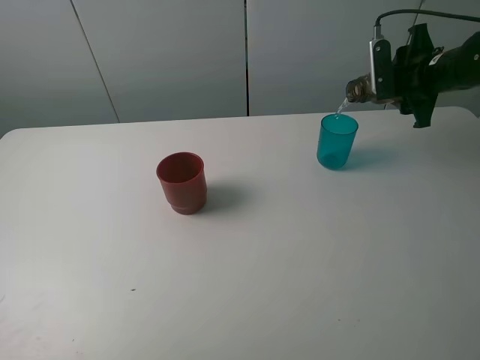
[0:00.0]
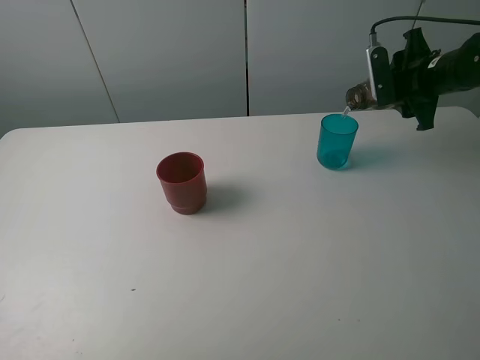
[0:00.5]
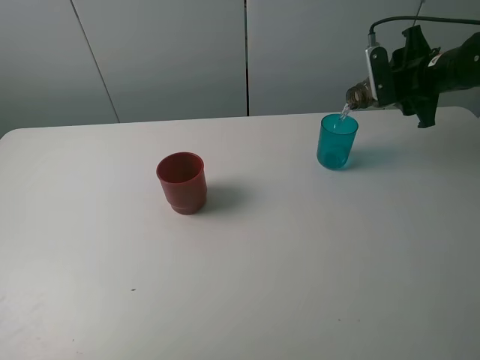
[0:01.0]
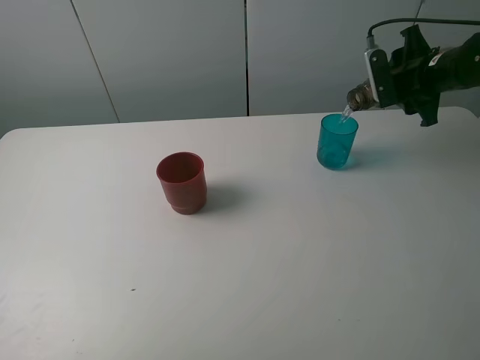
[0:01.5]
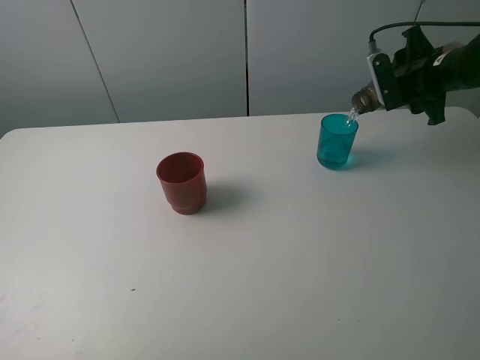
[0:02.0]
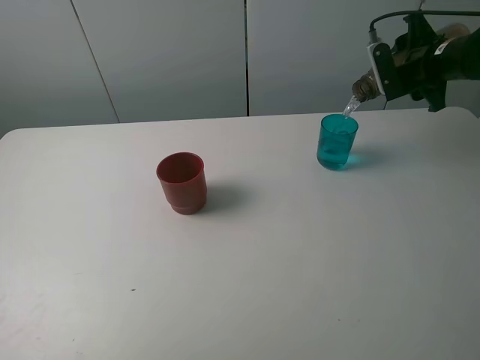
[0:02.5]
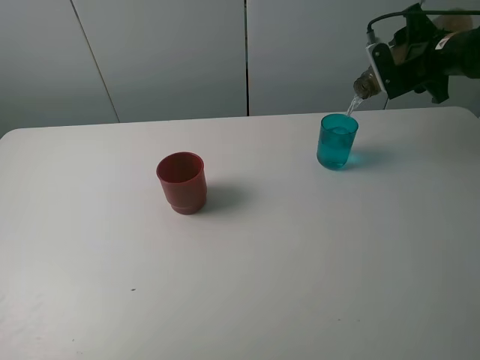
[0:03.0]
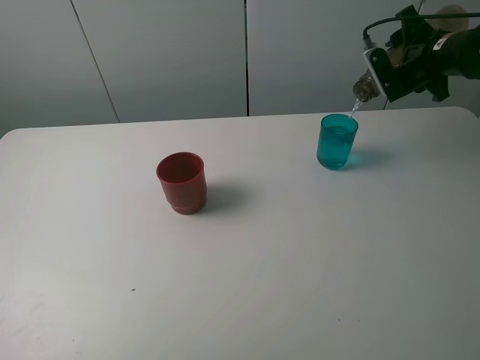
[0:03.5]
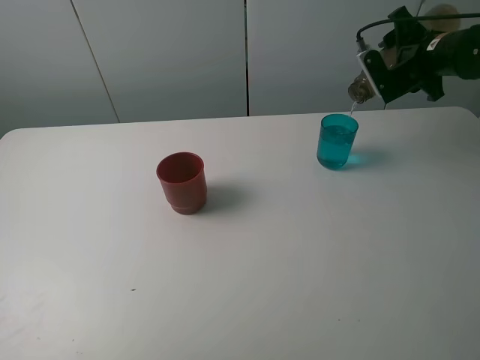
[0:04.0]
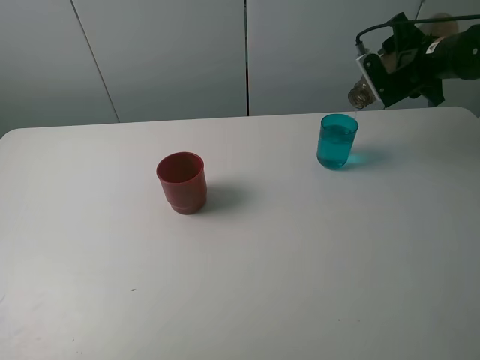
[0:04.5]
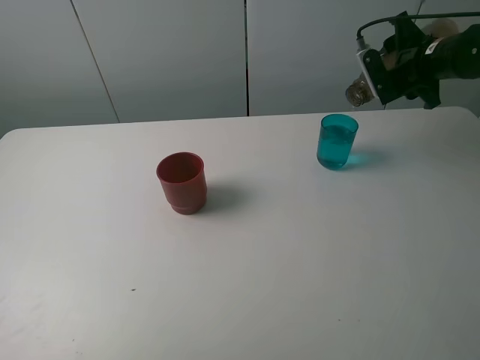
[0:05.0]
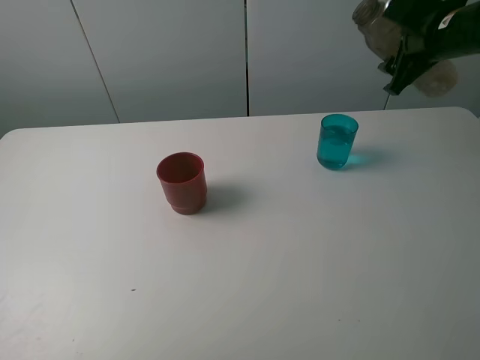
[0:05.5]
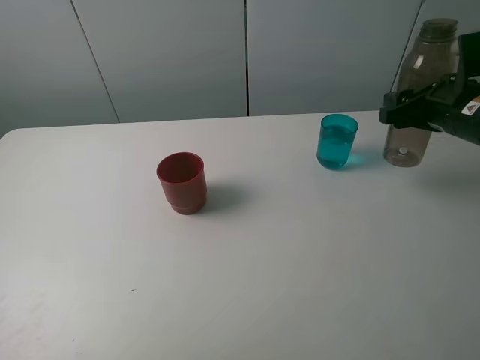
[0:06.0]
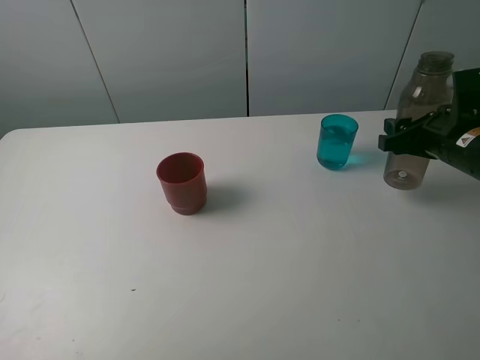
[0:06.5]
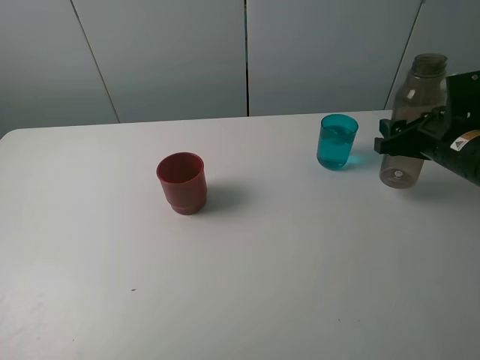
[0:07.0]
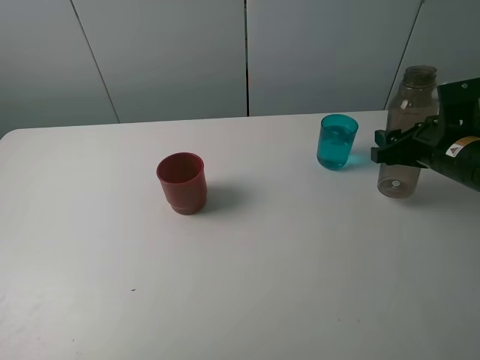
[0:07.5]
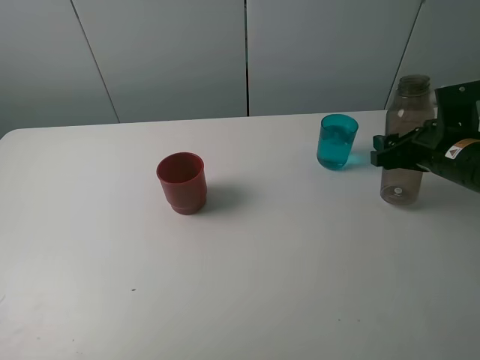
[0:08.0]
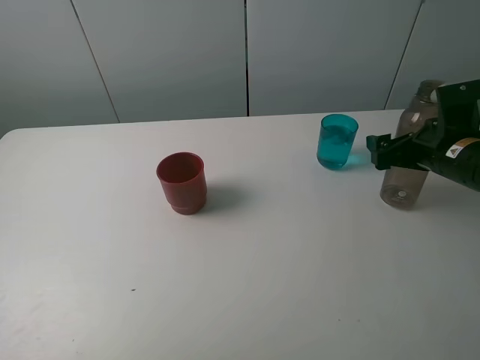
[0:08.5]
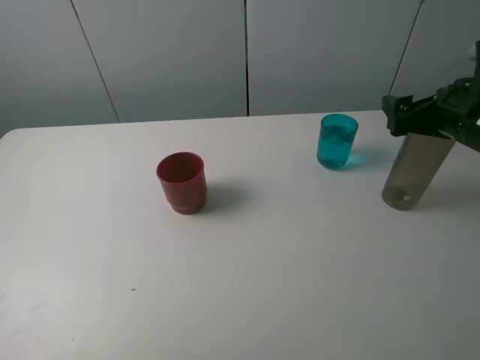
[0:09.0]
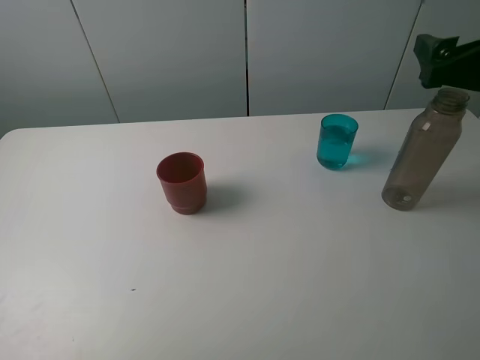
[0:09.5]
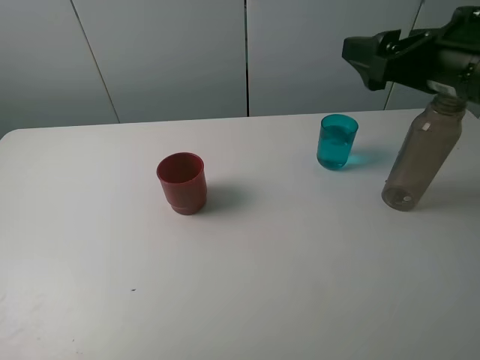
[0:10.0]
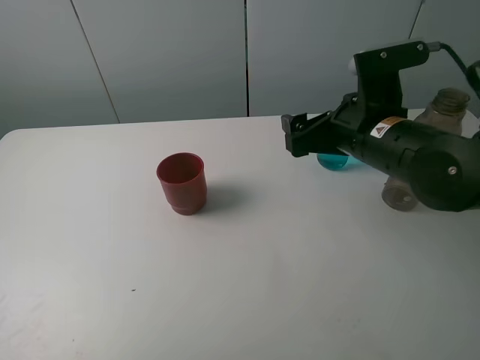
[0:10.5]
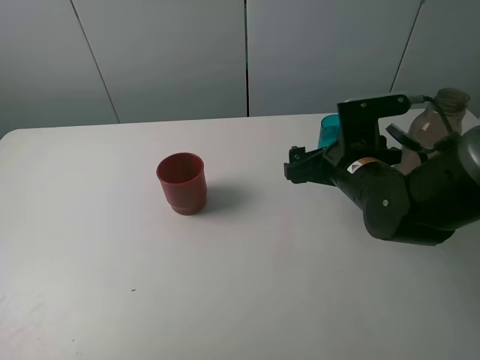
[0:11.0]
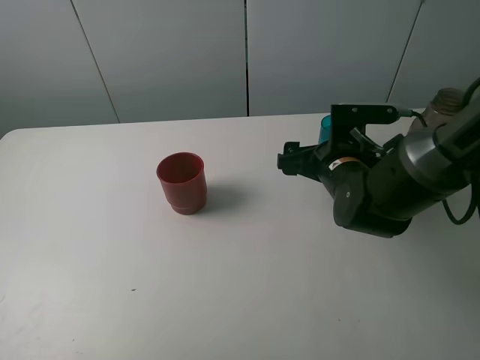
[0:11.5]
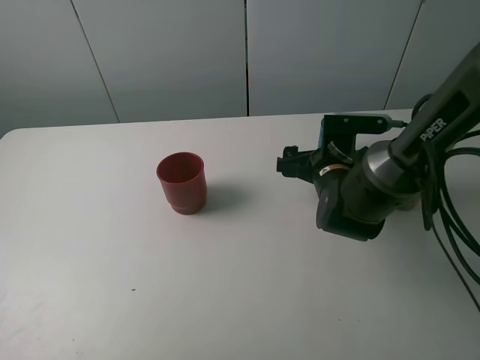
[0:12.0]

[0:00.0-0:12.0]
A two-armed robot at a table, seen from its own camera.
Task of the whole recording: pick up the bottle and pour water into the cup, then pick up the cup containing water and pour it into another cup.
Step, 0:00.0 to 0:05.0: Pour water from brown bottle to blue cup with the right gripper.
Step, 0:05.5 to 0:08.5: Place the brown bottle with the right gripper.
0:00.0 to 0:02.0: The grippers stay close to where they were, moving slightly.
0:02.0 to 0:04.0: The grippers move only a little.
0:04.0 to 0:06.0: The right gripper goes some 15 cm backward.
0:06.0 to 0:08.0: The grippers move only a little.
0:08.0 to 0:10.0: The right gripper heads upward and to the left, covering approximately 15 cm, and opens.
0:10.0 to 0:12.0: The right gripper heads downward and to the left, covering roughly 20 cm.

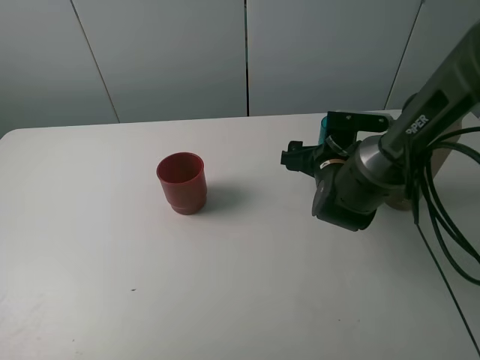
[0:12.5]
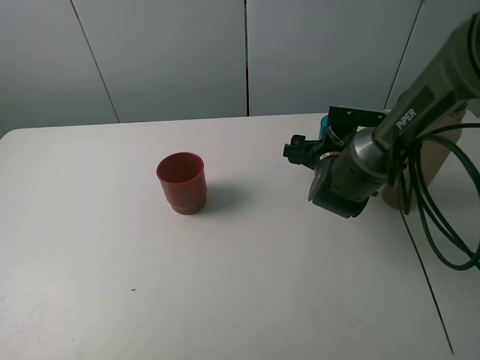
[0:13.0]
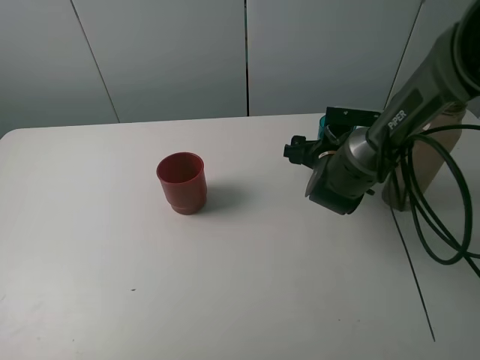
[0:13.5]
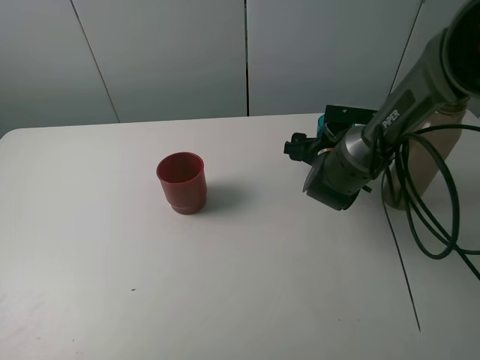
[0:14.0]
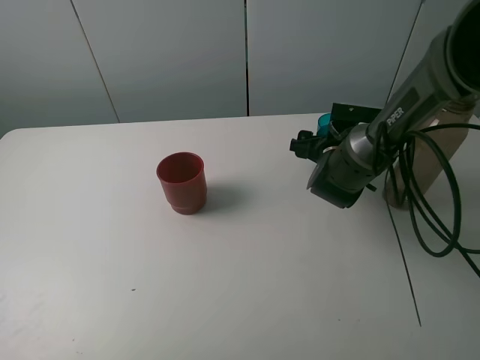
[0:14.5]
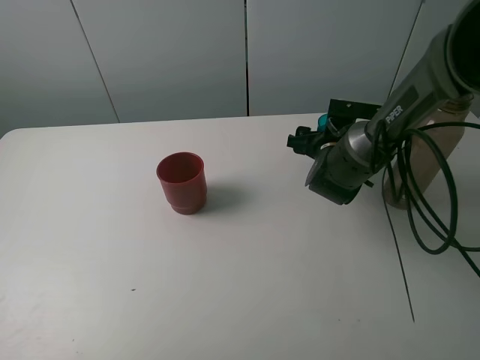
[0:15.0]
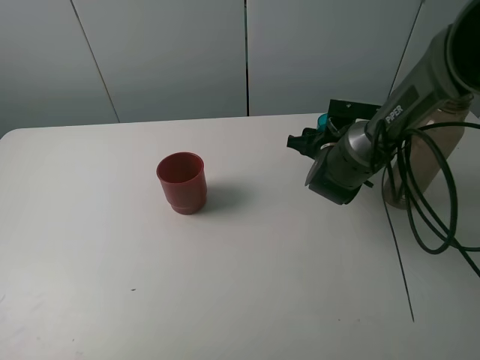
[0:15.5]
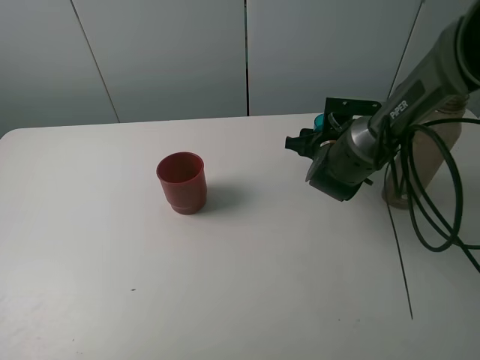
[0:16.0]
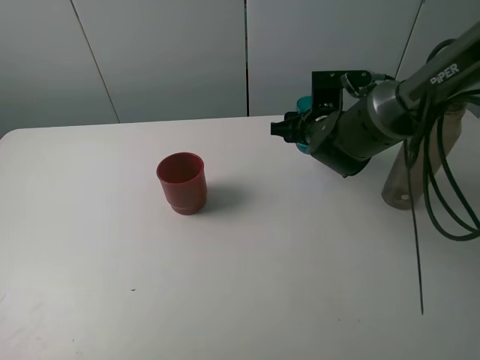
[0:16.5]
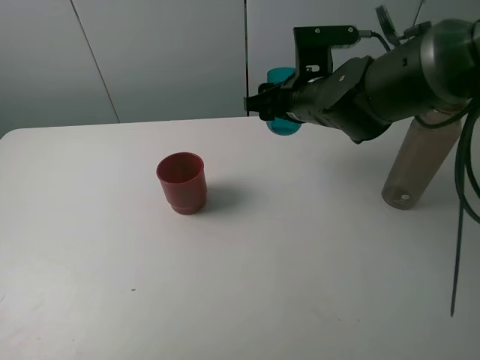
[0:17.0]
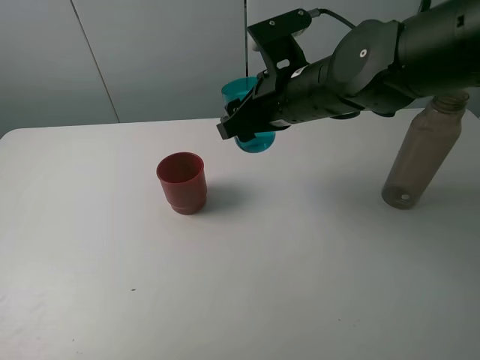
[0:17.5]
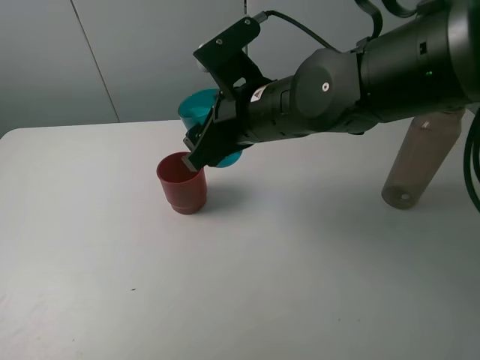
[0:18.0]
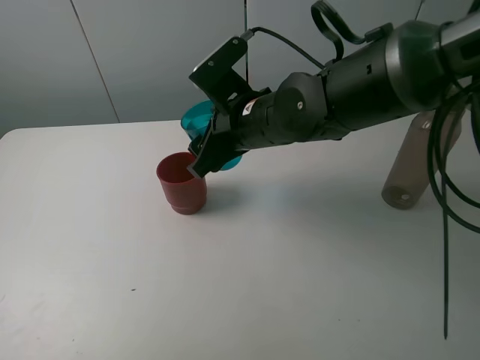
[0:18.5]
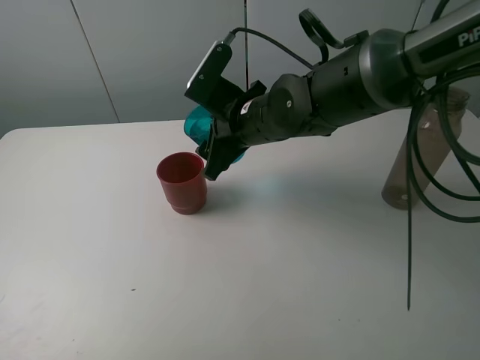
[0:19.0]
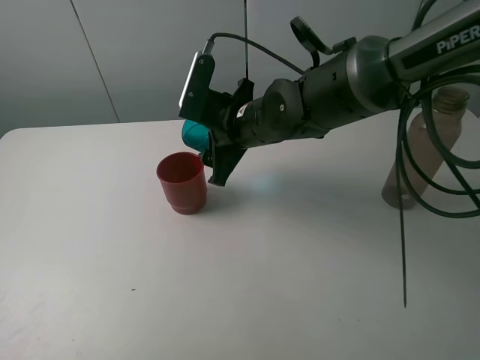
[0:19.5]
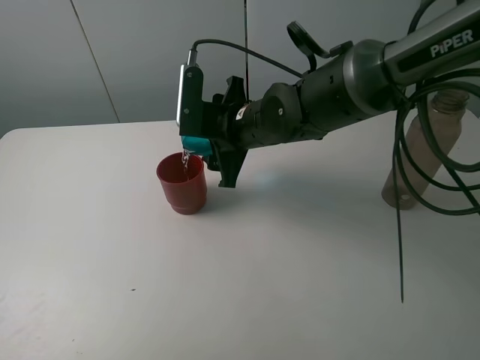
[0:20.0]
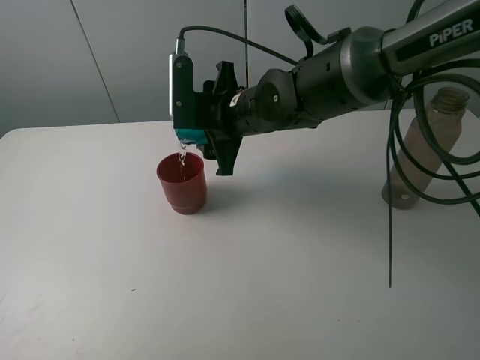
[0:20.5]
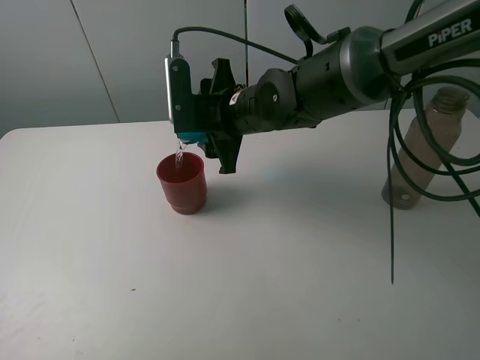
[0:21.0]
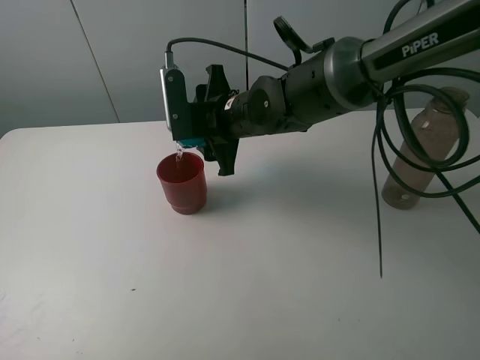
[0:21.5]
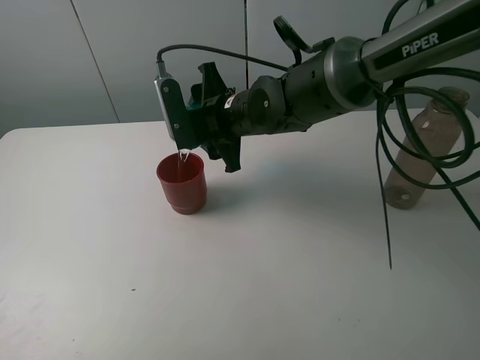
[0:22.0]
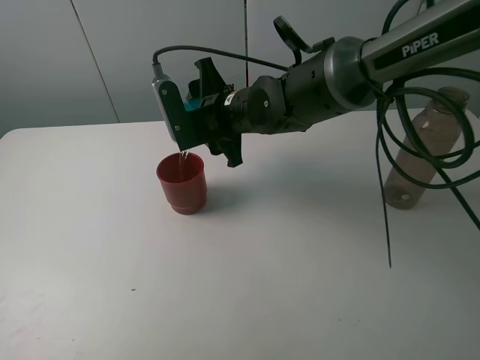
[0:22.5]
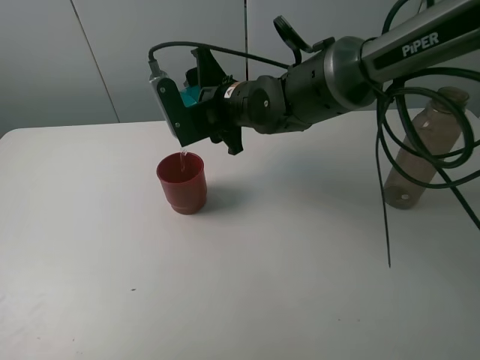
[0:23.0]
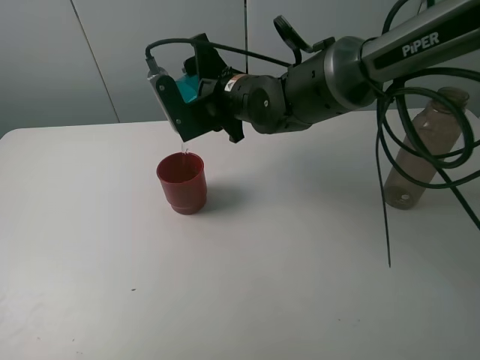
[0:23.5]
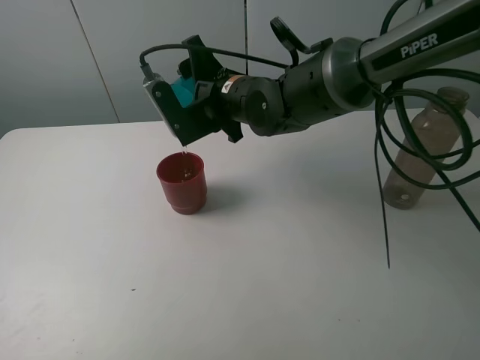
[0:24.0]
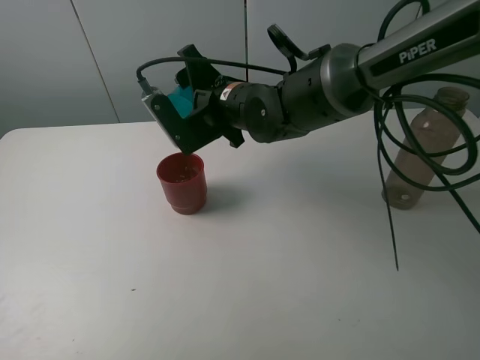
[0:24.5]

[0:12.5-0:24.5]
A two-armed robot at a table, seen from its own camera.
Task of the whole recording: pick up the bottle and pour water into the cup, then pick up the cup containing water and pour it into another cup.
Step, 0:12.5 to 0:15.0: Grasp the blue cup with the right gripper.
Step, 0:15.5 to 0:24.0: Pour water from blue cup to red cup with the right gripper.
0:12.5 to 0:14.5: The grippers move only a little.
0:14.5 to 0:16.5: The right gripper heads upward, covering about 5 cm, and closes up.
0:16.5 to 0:18.5: The right gripper goes approximately 15 cm to the left, backward and upward.

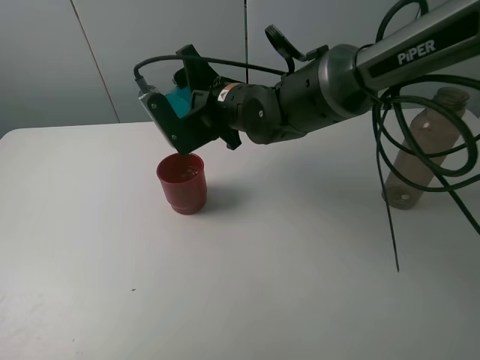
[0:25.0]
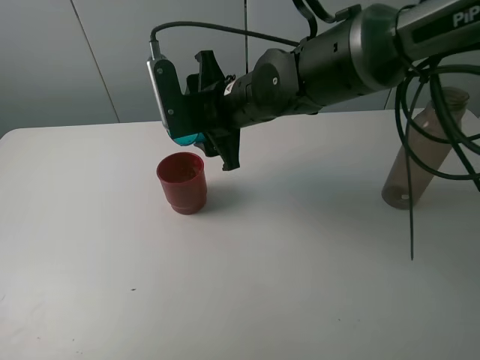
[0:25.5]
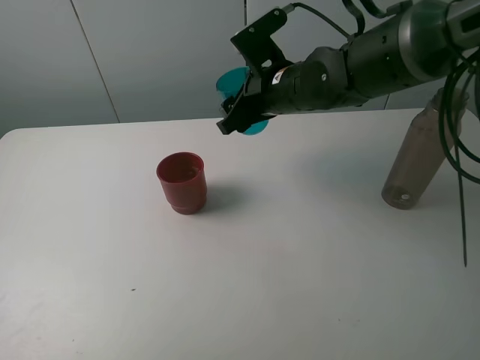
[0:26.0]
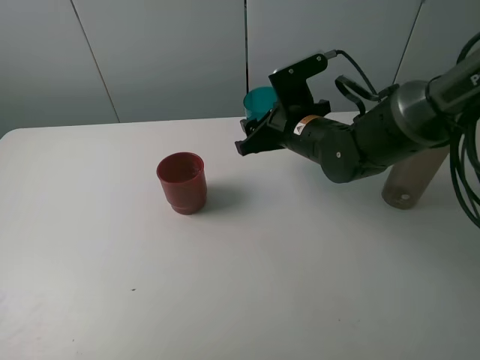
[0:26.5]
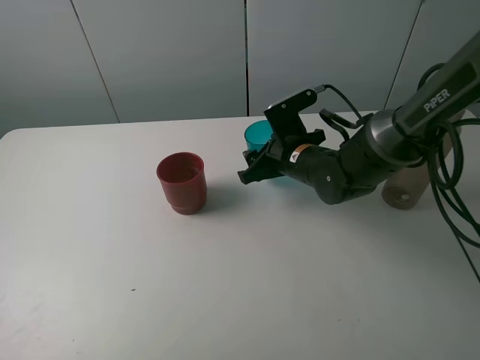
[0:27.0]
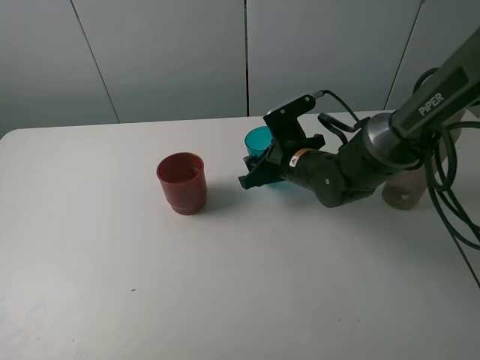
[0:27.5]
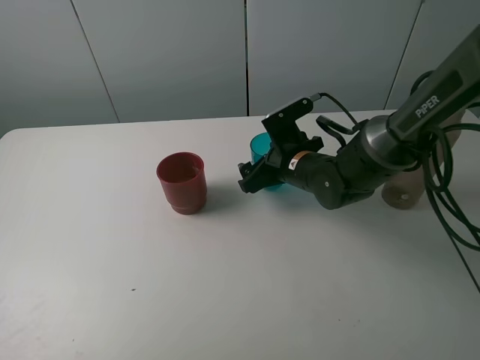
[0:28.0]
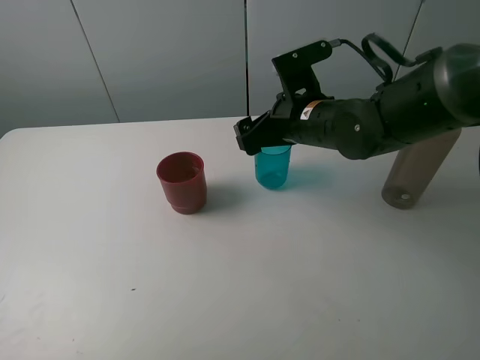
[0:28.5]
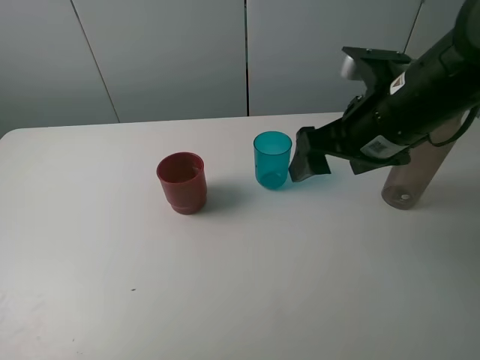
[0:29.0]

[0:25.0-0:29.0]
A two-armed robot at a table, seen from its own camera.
Task of the whole recording: pick up the bottle and pour water into the cup, then pick up the cup containing water and pour it into another cup.
Step, 0:25.0 to 0:28.0: Place the blue cup with the right gripper.
0:25.0 to 0:27.0: The right gripper moves to the right and downward, some 15 cm.
0:27.0 to 0:29.0: The right gripper heads upward, backward and to the right, covering approximately 20 cm, and opens.
